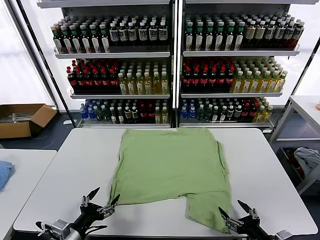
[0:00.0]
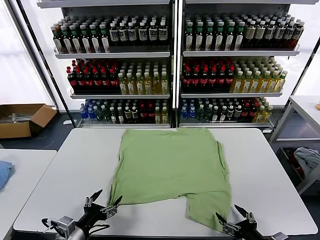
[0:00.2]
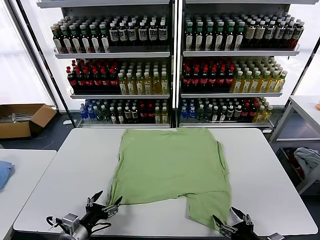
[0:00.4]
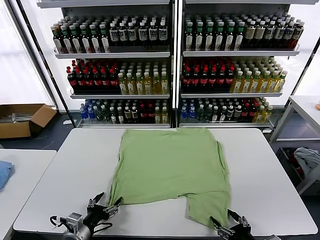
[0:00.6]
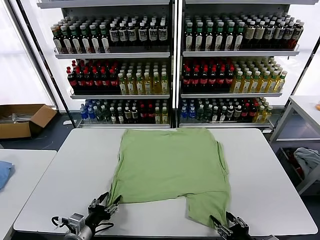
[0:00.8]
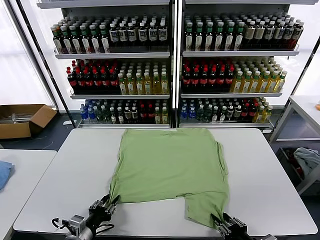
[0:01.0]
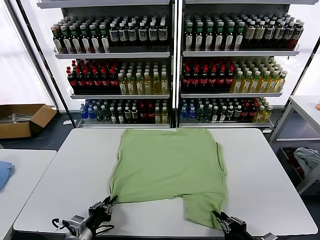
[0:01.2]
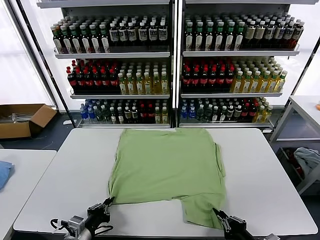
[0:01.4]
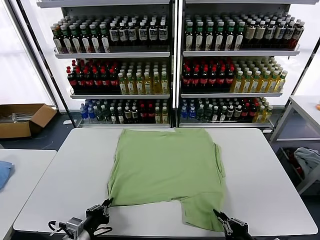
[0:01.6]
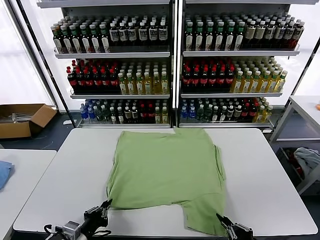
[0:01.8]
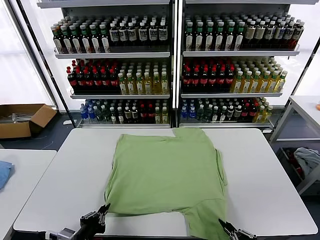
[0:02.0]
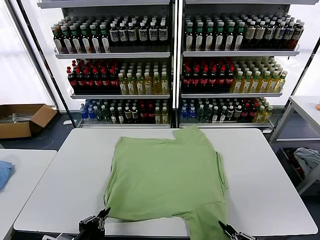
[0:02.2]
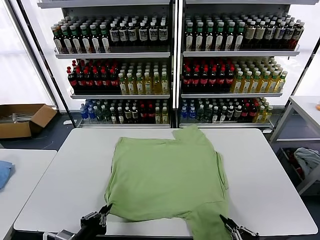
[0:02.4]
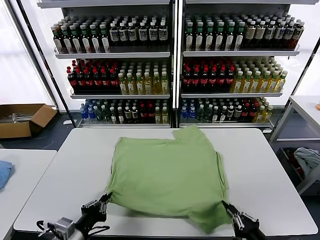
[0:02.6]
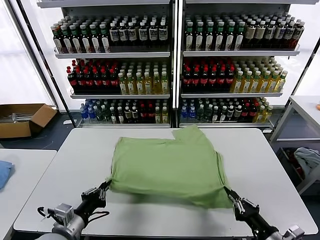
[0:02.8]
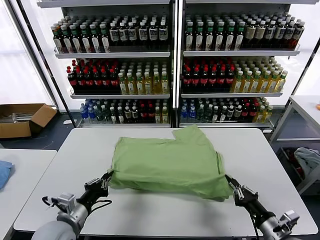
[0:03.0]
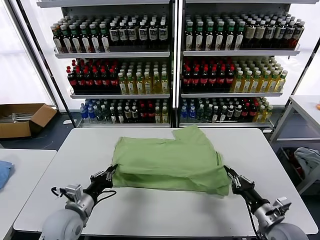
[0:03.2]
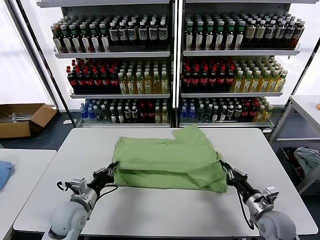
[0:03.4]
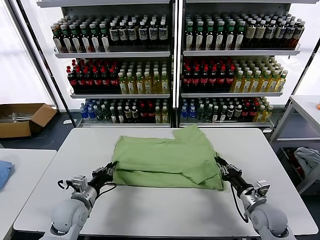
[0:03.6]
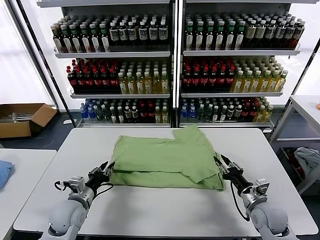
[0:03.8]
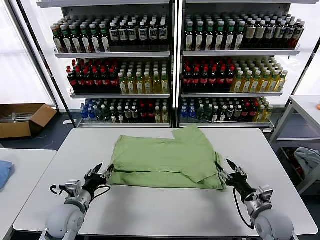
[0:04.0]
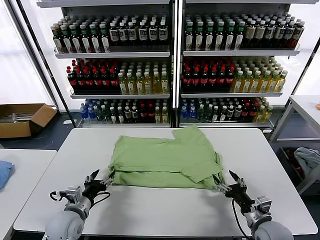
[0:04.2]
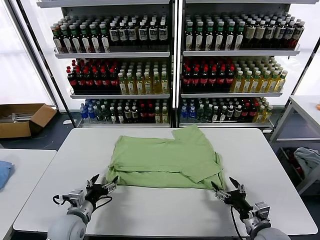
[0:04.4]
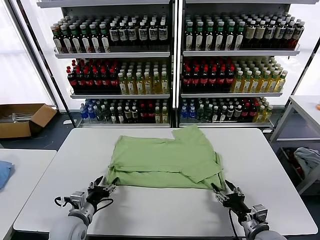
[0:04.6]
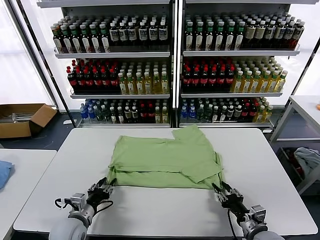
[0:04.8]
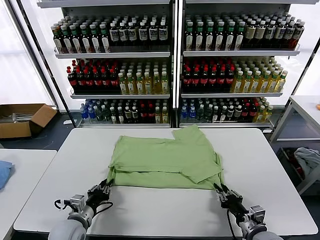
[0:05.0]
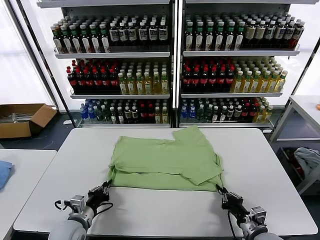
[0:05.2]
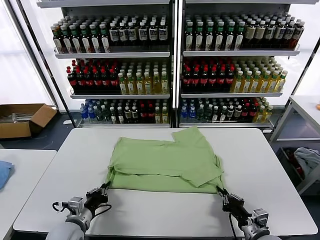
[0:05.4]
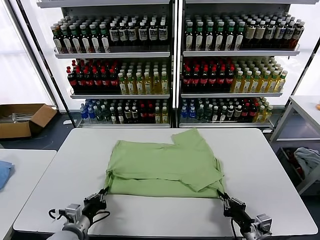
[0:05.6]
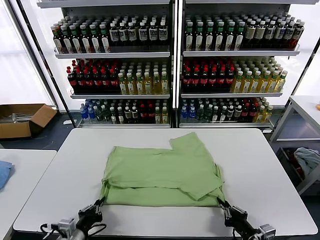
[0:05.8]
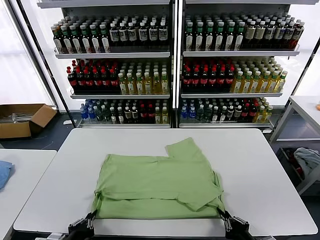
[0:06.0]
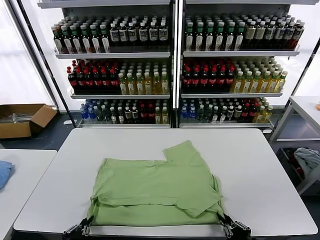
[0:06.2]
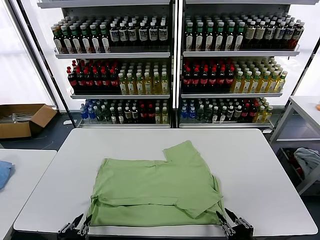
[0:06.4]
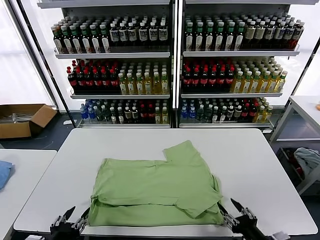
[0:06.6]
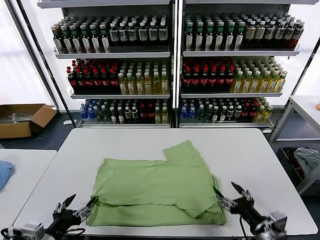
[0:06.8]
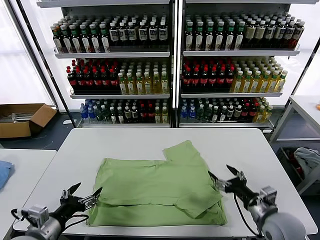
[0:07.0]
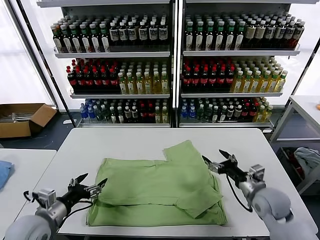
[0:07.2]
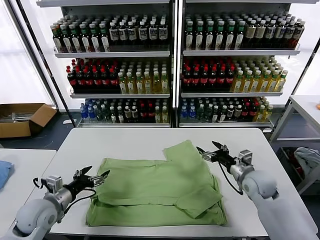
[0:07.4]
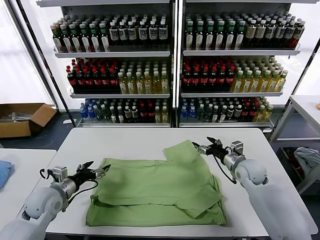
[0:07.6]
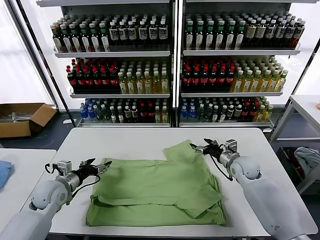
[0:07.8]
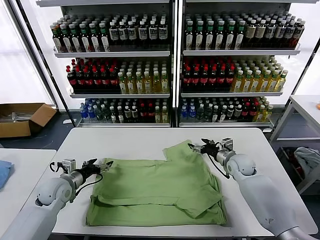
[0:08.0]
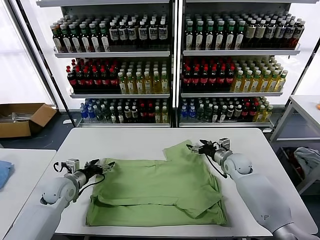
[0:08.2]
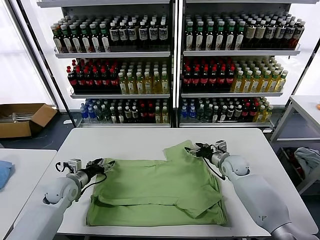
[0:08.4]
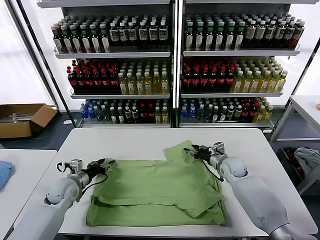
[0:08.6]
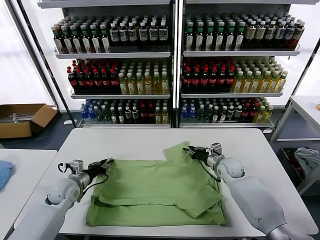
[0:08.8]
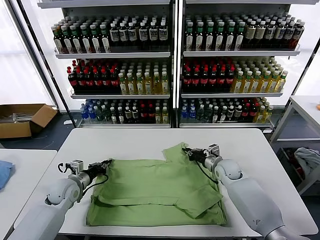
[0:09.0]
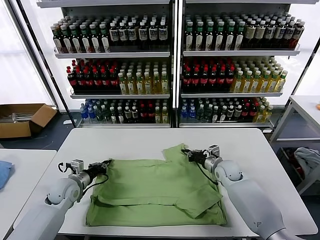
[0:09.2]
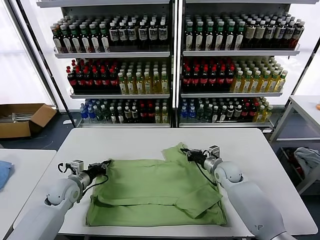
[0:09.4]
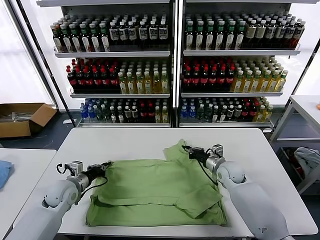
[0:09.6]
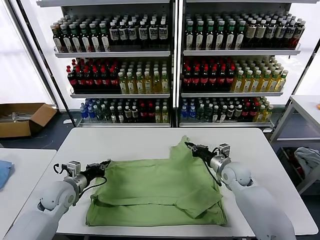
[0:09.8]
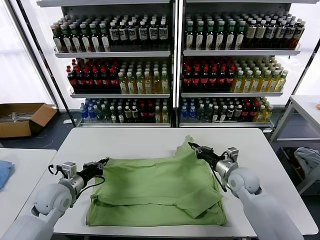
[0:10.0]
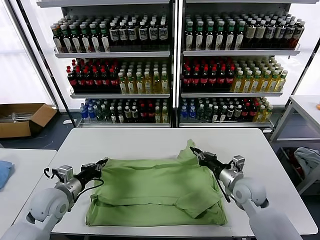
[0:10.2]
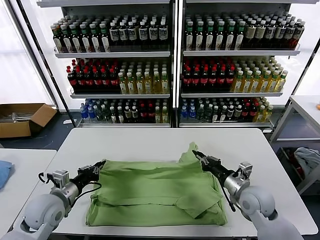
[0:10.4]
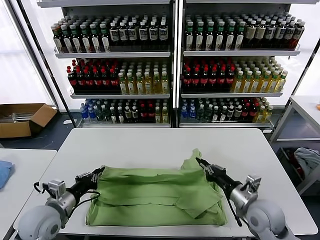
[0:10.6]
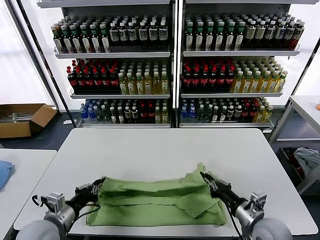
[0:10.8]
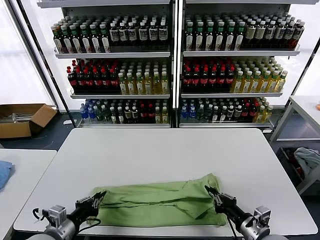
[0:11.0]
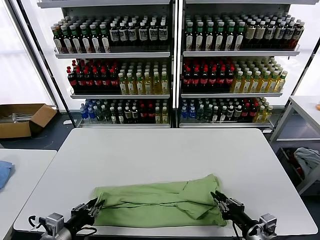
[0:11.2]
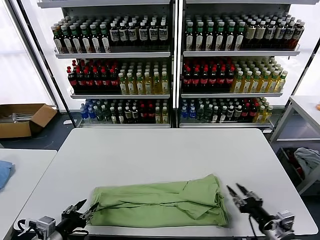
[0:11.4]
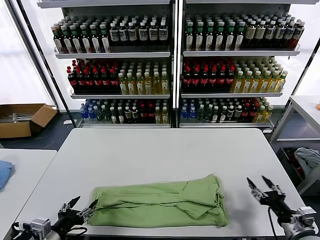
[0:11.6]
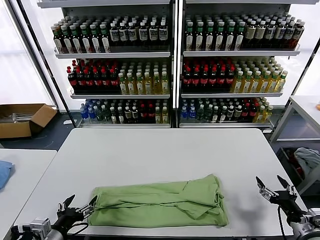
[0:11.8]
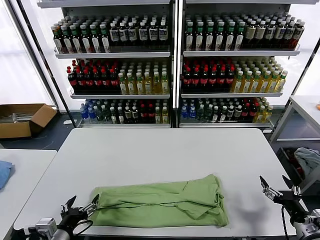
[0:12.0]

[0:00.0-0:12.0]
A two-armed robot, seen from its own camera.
Task of the whole recording: fold and organize the clothes.
Step, 0.0 to 1.2 s: use both grippers simultaneously to clamp the lower edge of the clothing fabric.
Step, 1.6 to 3.8 s: use both grippers to drag the lower edge of the fabric forward and fold it over the upper edge.
Step, 4.0 to 6.4 s: Drag the clothes downward with both gripper.
Step, 6.6 to 9.0 s: use both grippers simultaneously to clamp the upper edge of the clothing fabric.
Step, 9.2 to 11.2 s: use both grippers to drag the upper edge of the fabric backward and fold it over the lower edge.
1.6 to 3.0 s: The left gripper travels forward by approximately 5 cm, while the right gripper goes about 10 cm forward.
3.0 to 4.4 s: The left gripper is displaced downward by roughly 5 cm, and opens. The right gripper goes forward and returns, about 10 cm each way, and opens up.
4.4 to 6.0 s: The grippers both shift backward by approximately 15 cm. The left gripper closes up. Meanwhile the right gripper closes up.
6.0 to 7.6 s: The right gripper shifts approximately 35 cm forward, and opens its fingers, while the left gripper shifts roughly 20 cm forward, and opens up.
7.6 to 9.0 s: The left gripper heads forward, covering some 5 cm, and closes. The right gripper ends up roughly 10 cm from where it was, and closes its fingers.
9.0 to 10.4 s: The right gripper heads backward and upward, covering roughly 20 cm. The left gripper goes about 10 cm backward and upward.
10.4 to 12.0 s: The left gripper moves backward, some 15 cm, and opens up; the right gripper heads to the right and backward, covering approximately 20 cm, and opens up.

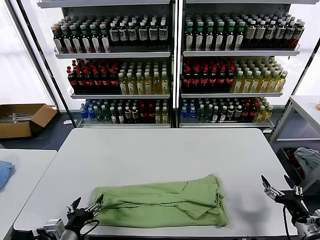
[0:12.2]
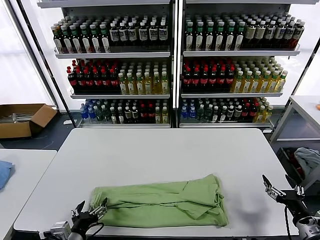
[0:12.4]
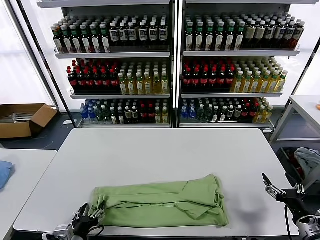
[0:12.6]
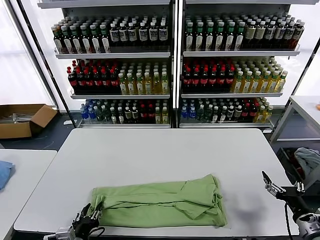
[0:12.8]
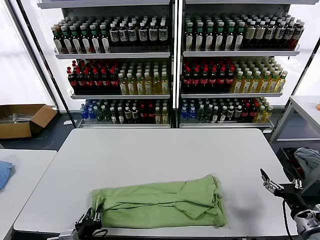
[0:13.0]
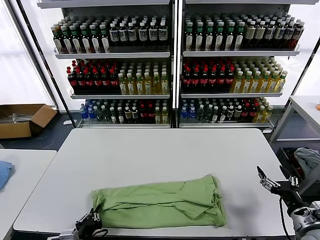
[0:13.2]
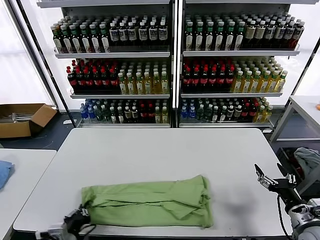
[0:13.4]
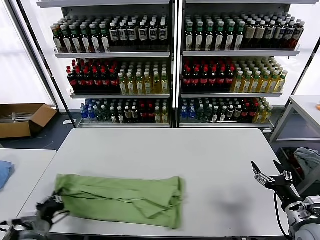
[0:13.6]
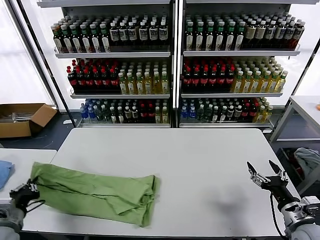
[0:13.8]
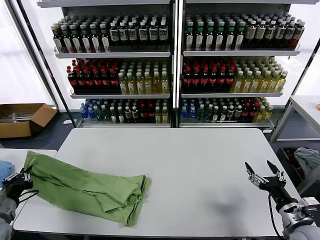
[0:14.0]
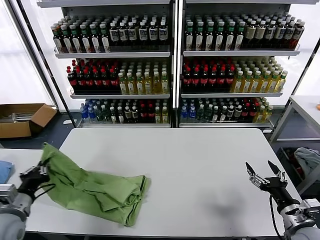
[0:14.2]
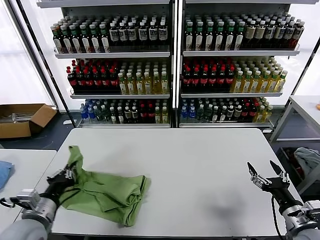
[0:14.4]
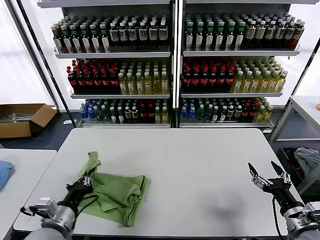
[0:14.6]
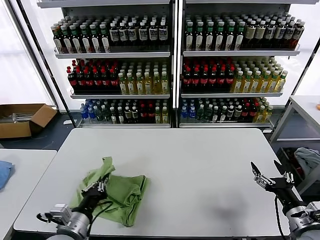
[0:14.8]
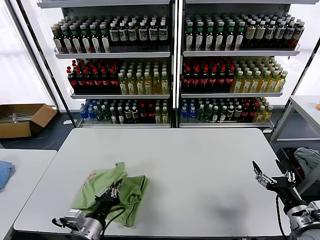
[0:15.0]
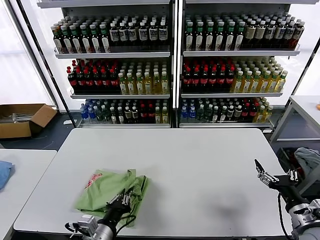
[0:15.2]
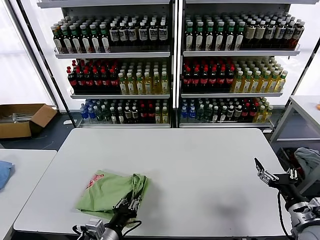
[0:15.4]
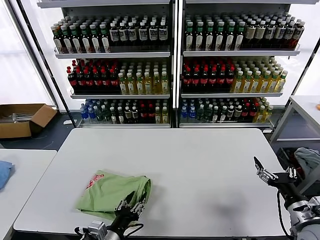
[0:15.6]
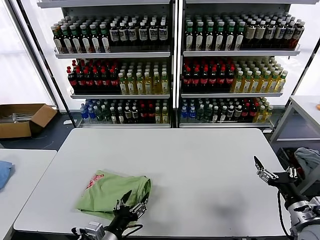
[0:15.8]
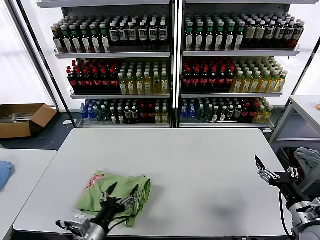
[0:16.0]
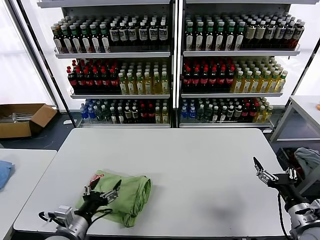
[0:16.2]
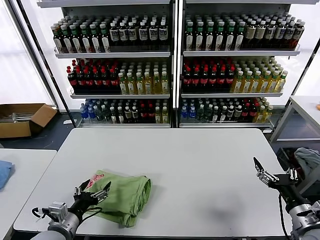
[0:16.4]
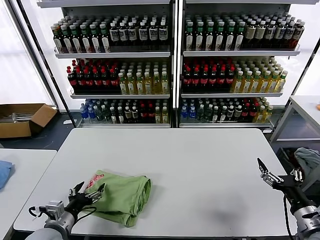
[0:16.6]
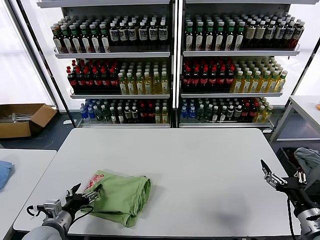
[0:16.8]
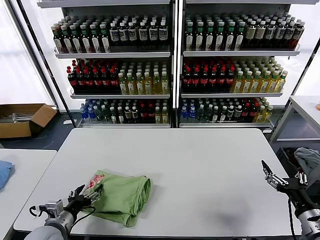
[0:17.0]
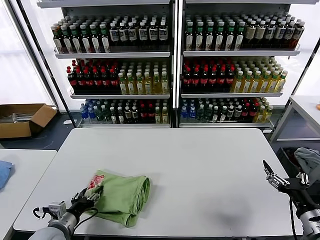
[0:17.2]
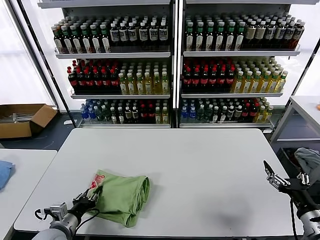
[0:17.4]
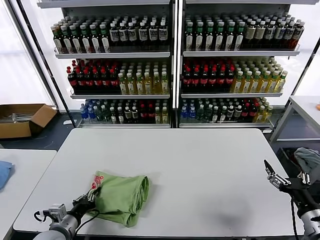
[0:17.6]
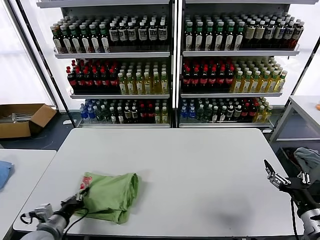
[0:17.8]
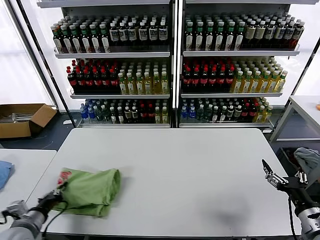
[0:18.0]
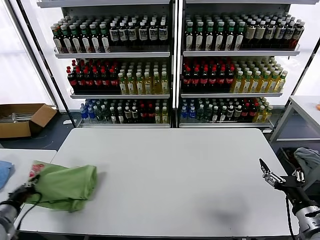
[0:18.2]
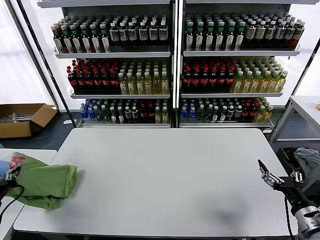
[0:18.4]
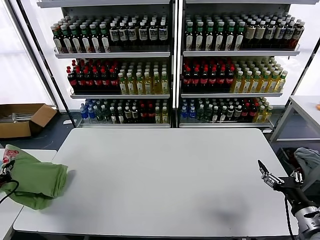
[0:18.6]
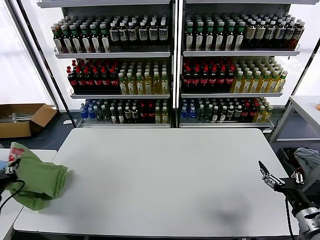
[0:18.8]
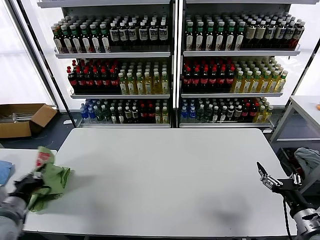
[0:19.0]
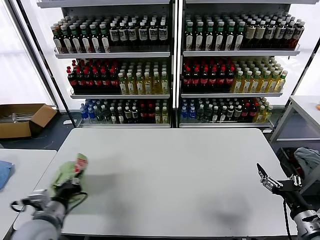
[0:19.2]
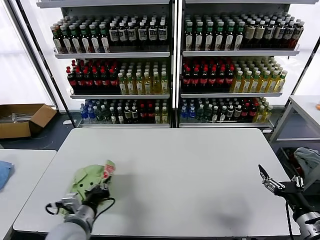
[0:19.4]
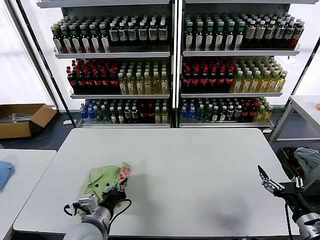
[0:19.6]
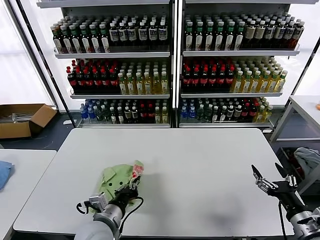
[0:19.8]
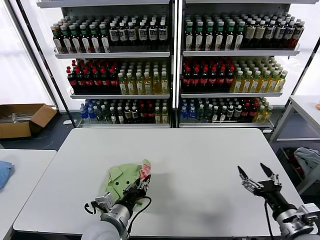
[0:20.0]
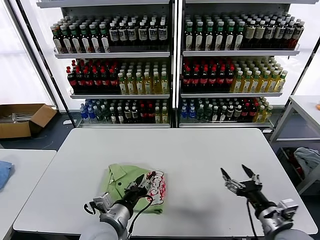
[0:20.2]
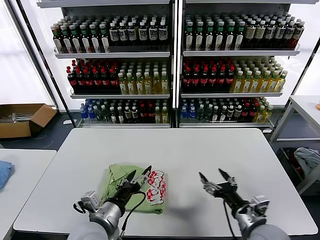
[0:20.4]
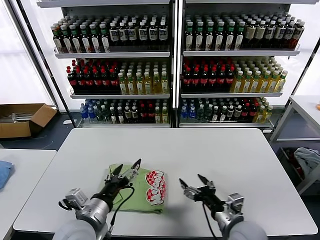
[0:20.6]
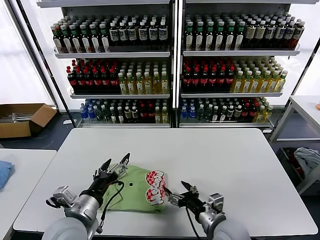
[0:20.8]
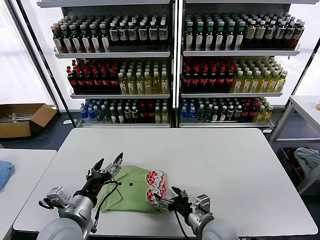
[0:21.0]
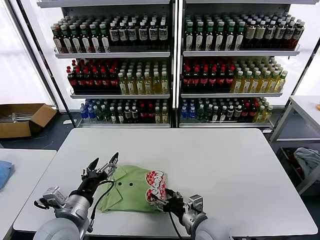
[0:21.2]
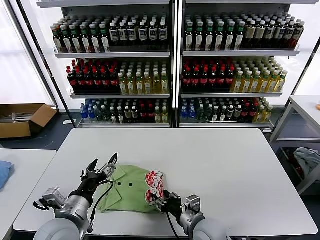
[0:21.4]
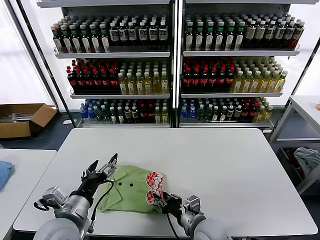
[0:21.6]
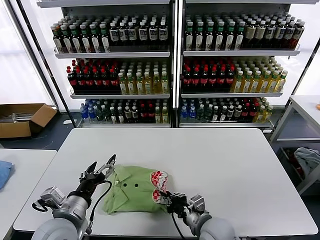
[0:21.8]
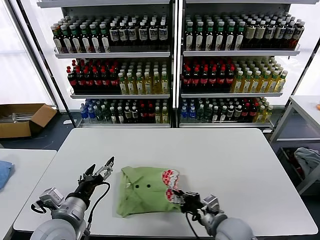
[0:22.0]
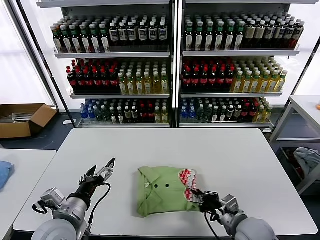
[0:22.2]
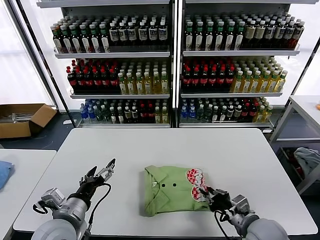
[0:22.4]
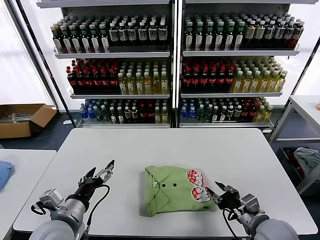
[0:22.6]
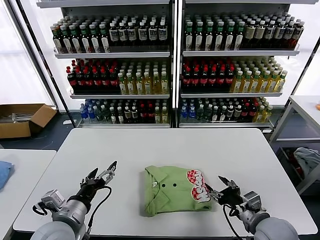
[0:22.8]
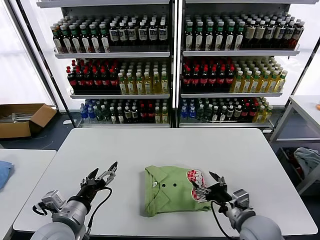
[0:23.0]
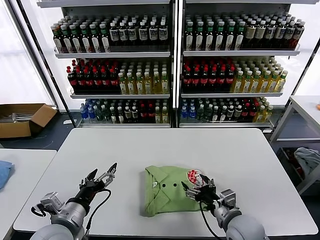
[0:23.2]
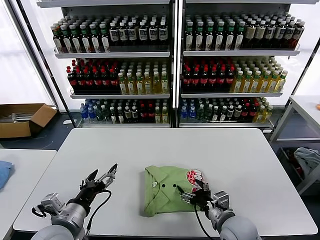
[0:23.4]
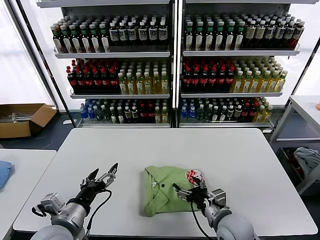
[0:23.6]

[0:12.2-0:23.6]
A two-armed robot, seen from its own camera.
Task of the whole recording: fold and organize the clothes.
Step, 12.2 to 13.2 s: use the left gripper to clamp the left edge of the fabric.
Step, 13.4 to 15.6 s: use the left gripper to drag the left edge of the fabric to the left and folds it over the right edge.
Step, 15.8 to 20.2 s: Flip the folded clothes over with left gripper.
12.2 to 13.6 s: The left gripper shifts roughly 10 cm to the left, and closes.
13.6 to 15.0 s: The left gripper shifts roughly 15 cm to the right.
15.0 to 16.4 s: The left gripper heads to the left, covering approximately 10 cm, and opens up.
16.4 to 17.8 s: The left gripper goes approximately 5 cm to the left, and closes its fingers.
17.8 to 19.4 s: The left gripper moves to the right and upward, approximately 10 cm.
19.4 to 20.8 s: The left gripper travels to the right and back again, approximately 10 cm each way, and opens its fingers, while the right gripper moves to the left, about 20 cm.
20.8 to 22.2 s: The right gripper travels to the right by roughly 5 cm, and closes up.
22.2 to 23.6 s: The right gripper opens up.
